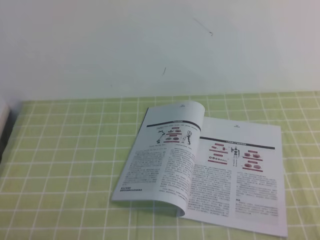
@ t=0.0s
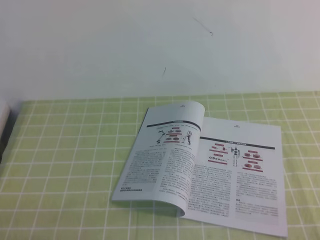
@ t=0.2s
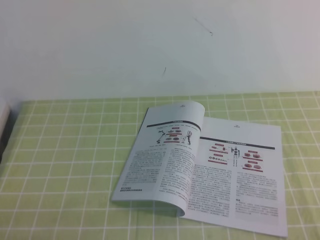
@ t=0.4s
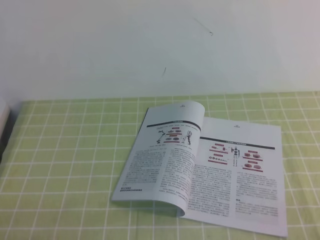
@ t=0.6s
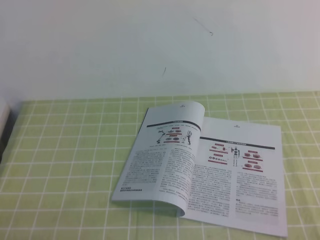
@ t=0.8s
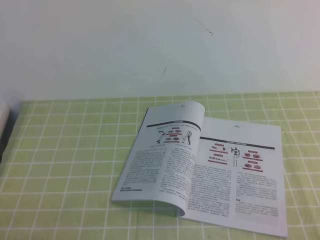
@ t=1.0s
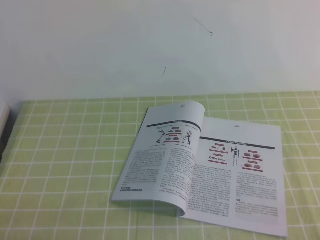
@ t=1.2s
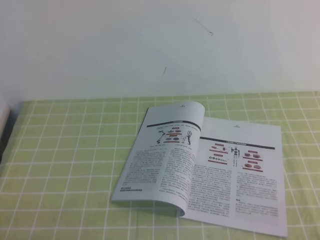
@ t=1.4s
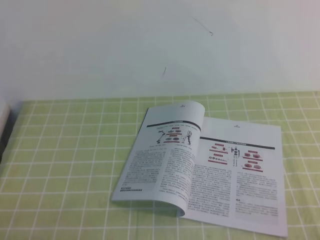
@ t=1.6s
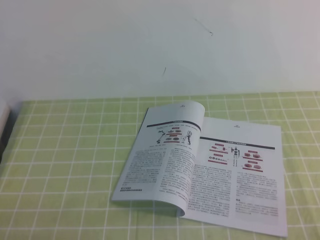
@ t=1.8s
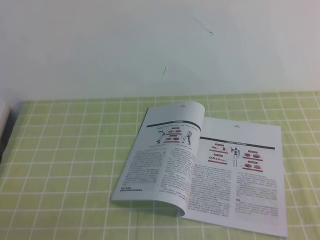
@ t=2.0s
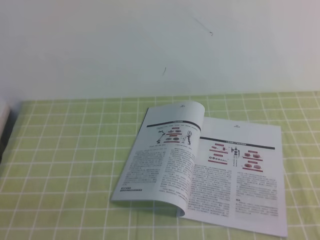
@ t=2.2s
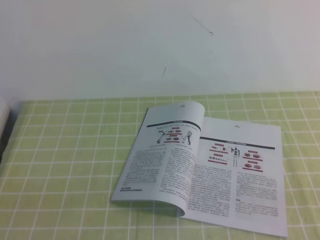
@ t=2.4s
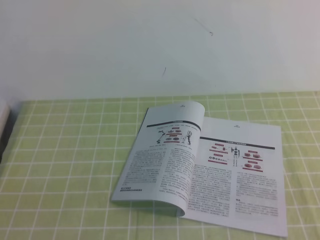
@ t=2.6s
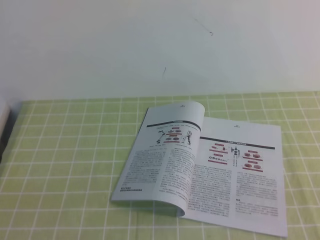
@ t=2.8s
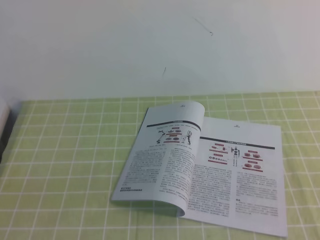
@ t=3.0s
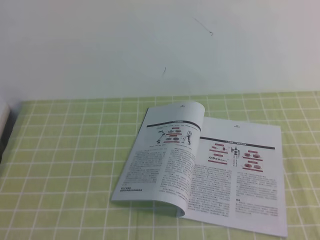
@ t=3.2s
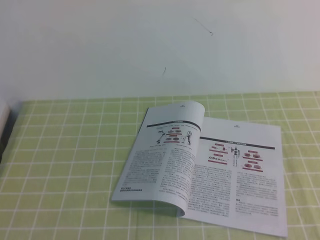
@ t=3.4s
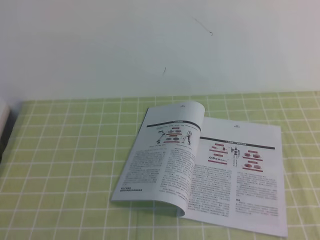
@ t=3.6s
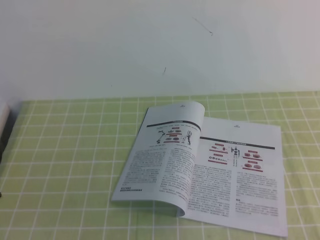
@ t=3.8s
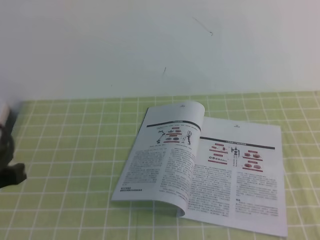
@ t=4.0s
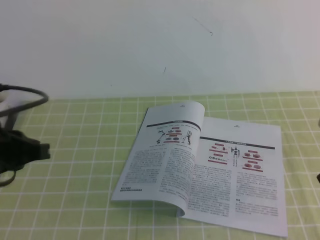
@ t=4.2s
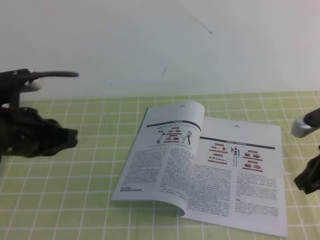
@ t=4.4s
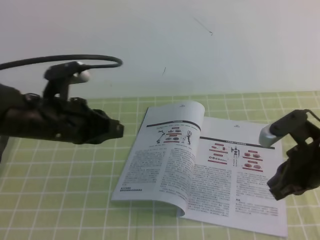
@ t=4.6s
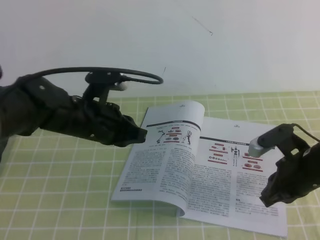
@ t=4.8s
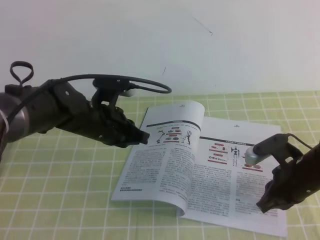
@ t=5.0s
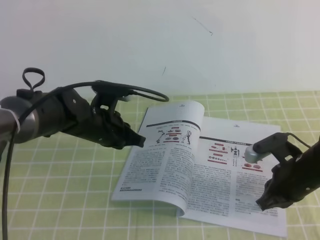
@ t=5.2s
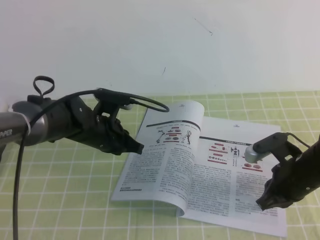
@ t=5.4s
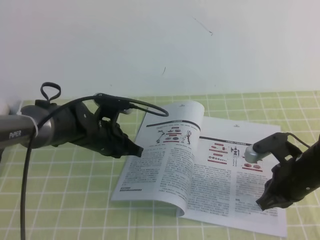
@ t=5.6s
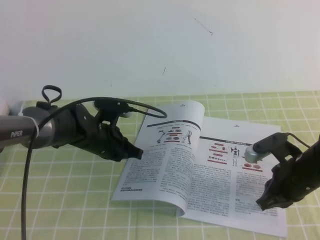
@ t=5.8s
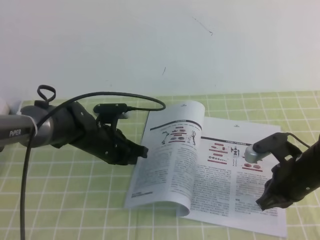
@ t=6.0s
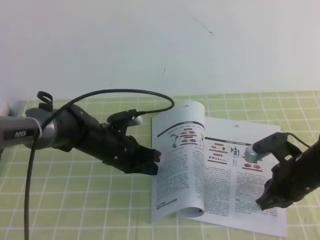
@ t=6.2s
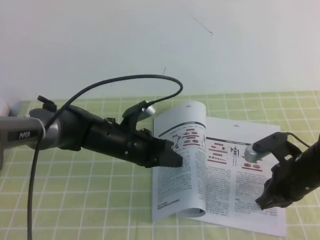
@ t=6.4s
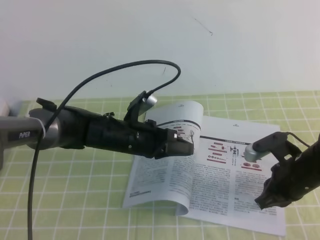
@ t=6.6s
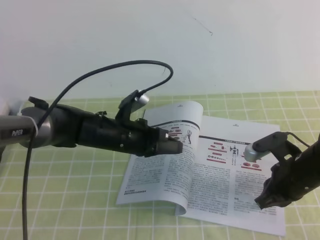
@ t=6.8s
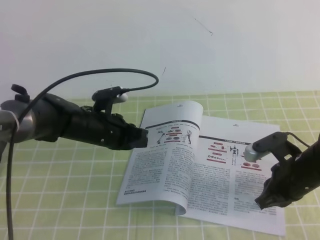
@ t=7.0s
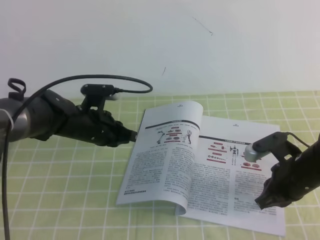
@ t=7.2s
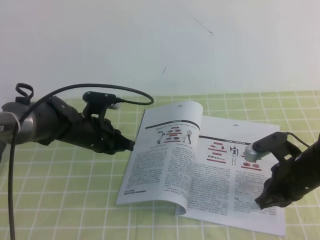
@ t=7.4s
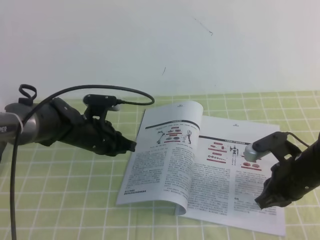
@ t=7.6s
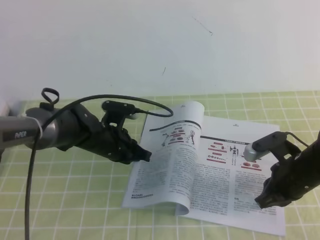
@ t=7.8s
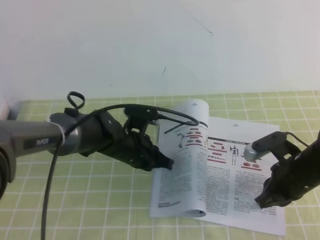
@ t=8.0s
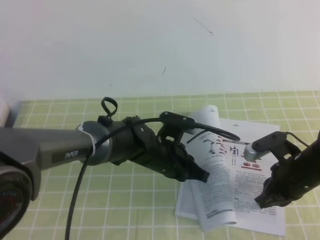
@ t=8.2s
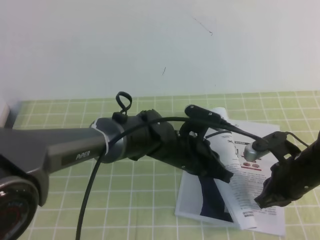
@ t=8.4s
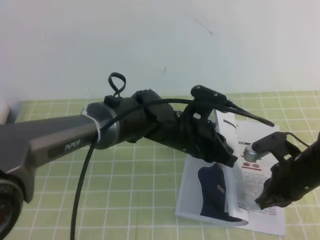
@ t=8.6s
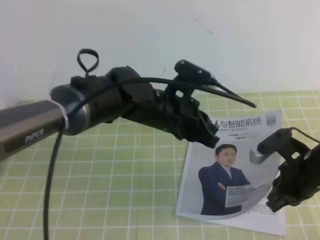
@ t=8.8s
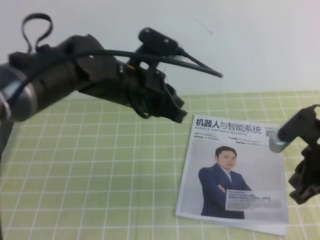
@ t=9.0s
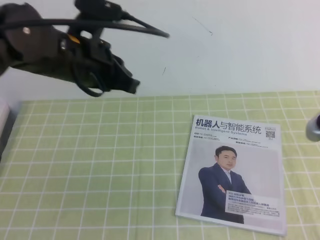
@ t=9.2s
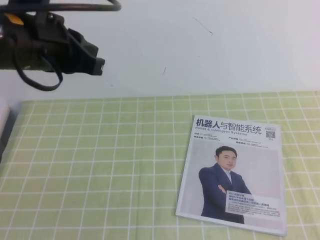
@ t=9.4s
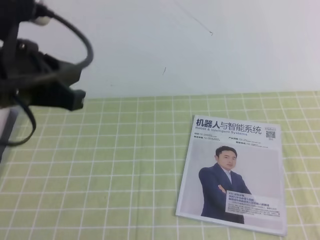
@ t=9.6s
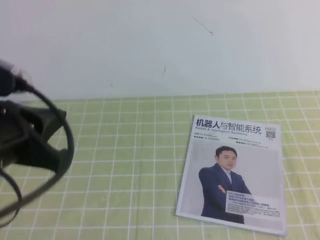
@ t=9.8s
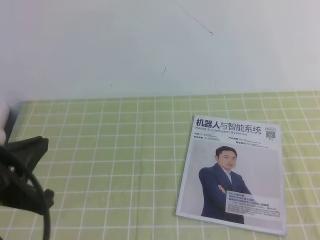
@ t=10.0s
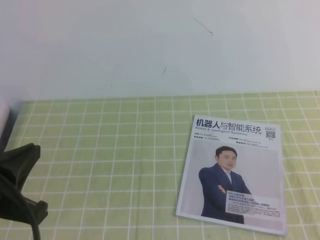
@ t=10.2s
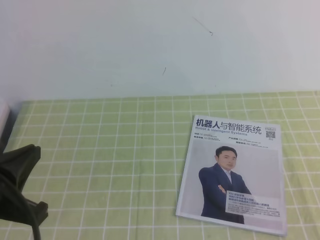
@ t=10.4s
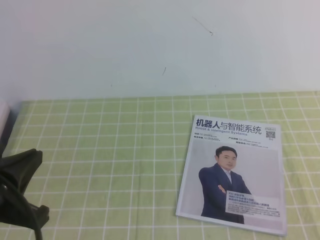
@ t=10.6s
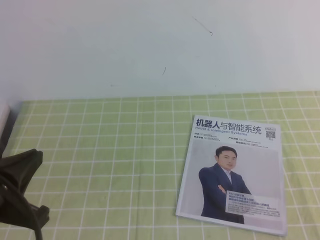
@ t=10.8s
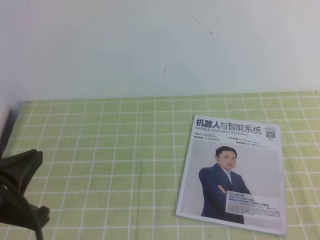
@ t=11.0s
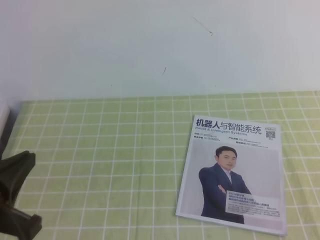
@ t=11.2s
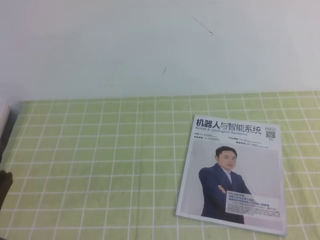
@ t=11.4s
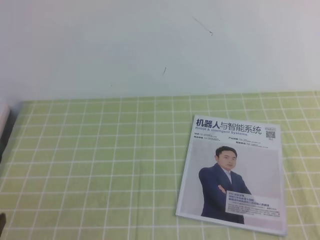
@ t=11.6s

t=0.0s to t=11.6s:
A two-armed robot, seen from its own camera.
Task of the whole recording: on the green tablecloth, hold the book with one hand and close it with the other.
t=0.0s to t=1.4s: Both grippers stay about where they are.
t=2.8s to t=4.4s: The grippers both shift forward by some 20 cm.
t=4.4s to t=5.8s: The left gripper heads downward, forward and to the right, covering some 20 cm. The right gripper shifts approximately 10 cm downward and to the left.
t=7.2s to t=8.8s: The left gripper goes approximately 15 cm to the right and upward.
t=8.8s to t=10.2s: The left gripper moves to the left and backward, approximately 30 cm, while the right gripper goes about 25 cm backward and upward.
t=10.2s to t=11.6s: The left gripper is displaced downward and backward by roughly 10 cm.
